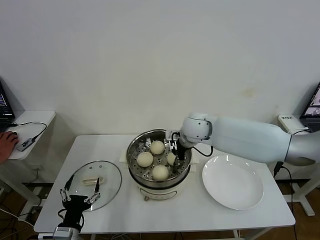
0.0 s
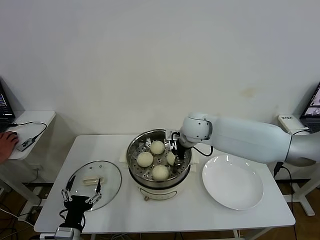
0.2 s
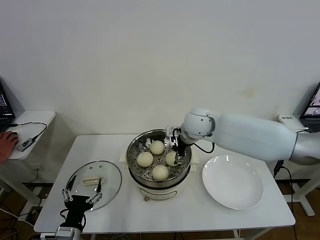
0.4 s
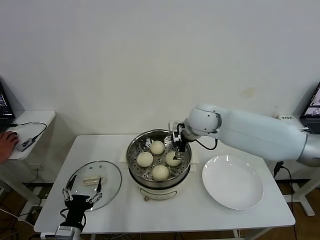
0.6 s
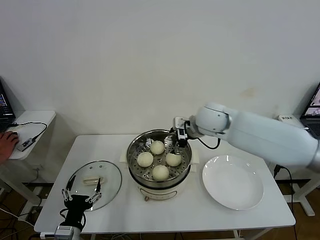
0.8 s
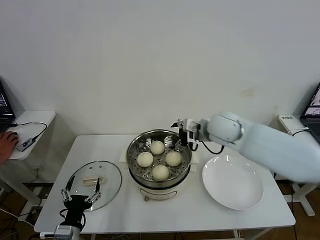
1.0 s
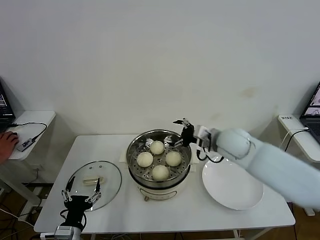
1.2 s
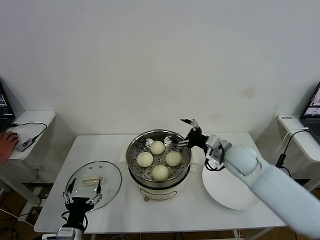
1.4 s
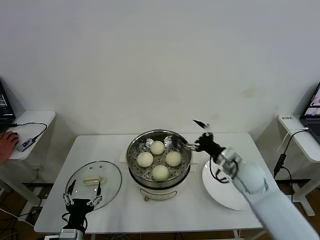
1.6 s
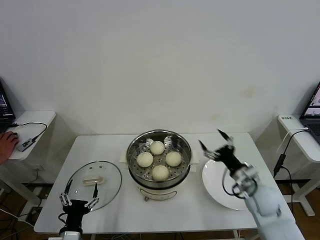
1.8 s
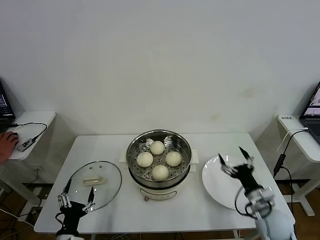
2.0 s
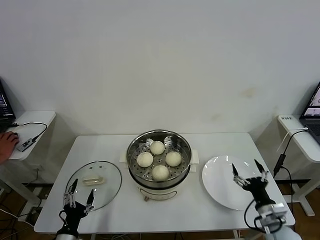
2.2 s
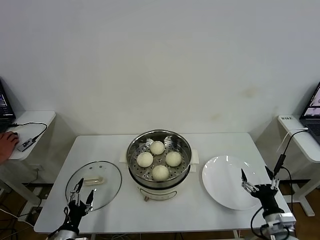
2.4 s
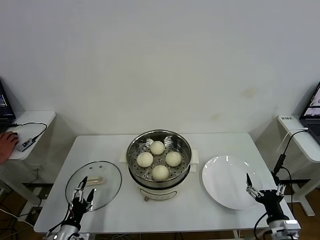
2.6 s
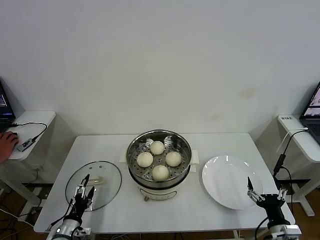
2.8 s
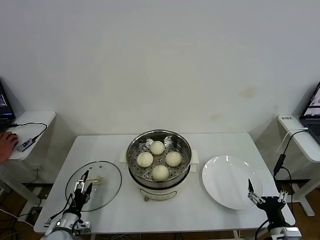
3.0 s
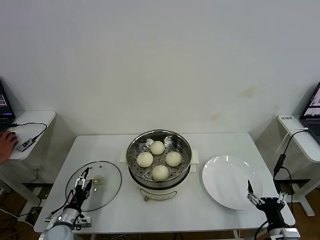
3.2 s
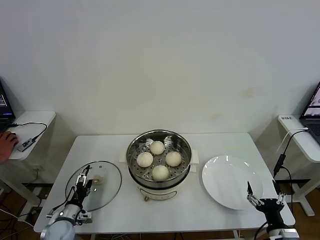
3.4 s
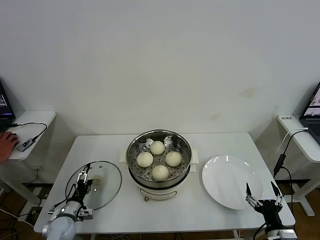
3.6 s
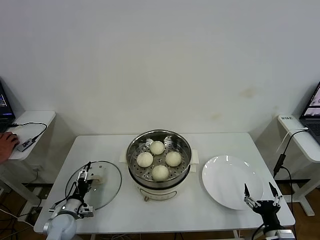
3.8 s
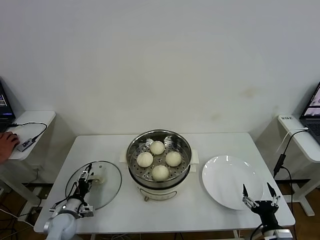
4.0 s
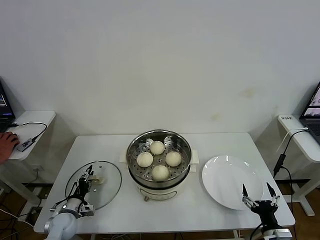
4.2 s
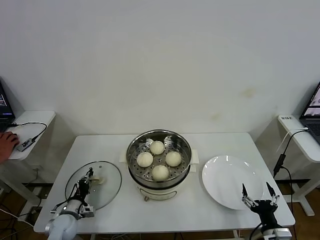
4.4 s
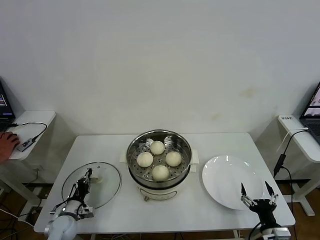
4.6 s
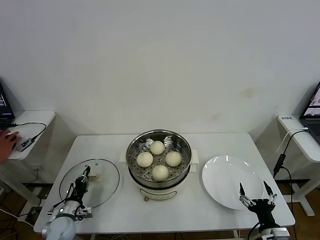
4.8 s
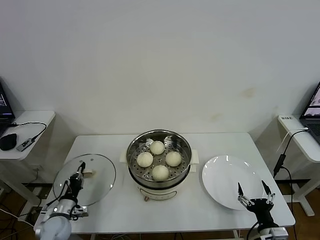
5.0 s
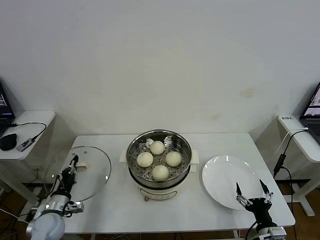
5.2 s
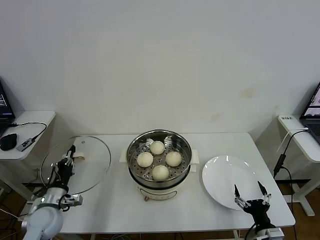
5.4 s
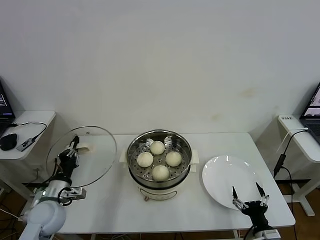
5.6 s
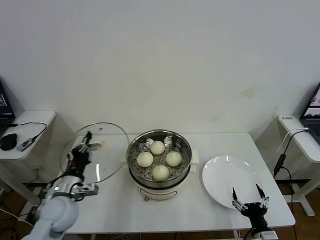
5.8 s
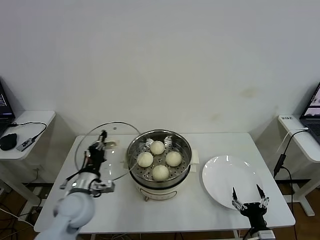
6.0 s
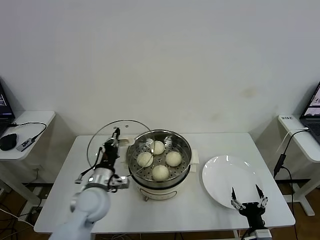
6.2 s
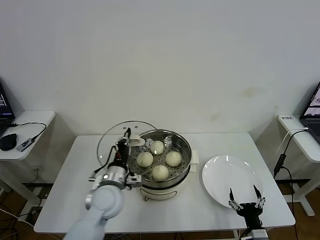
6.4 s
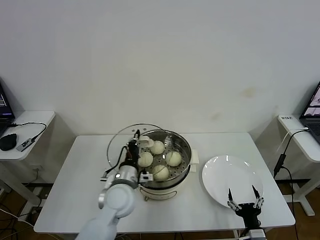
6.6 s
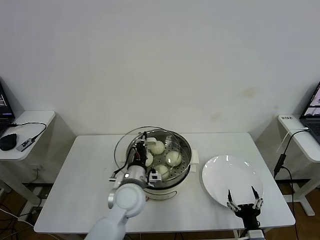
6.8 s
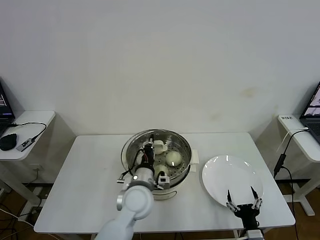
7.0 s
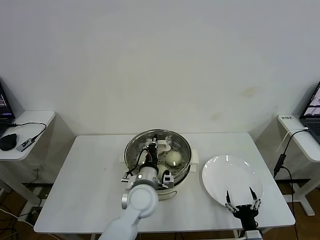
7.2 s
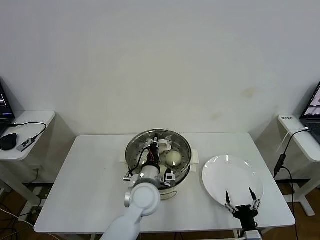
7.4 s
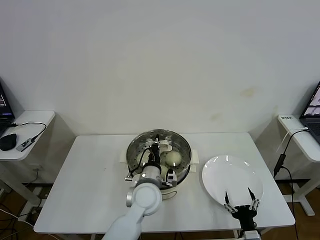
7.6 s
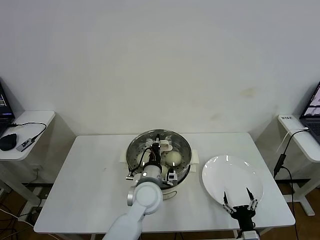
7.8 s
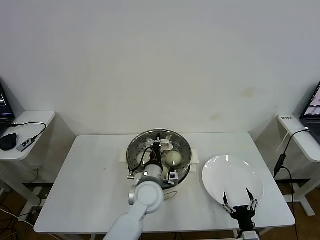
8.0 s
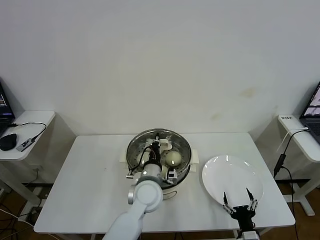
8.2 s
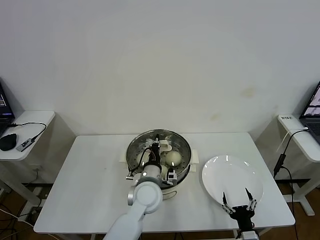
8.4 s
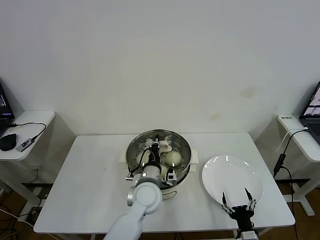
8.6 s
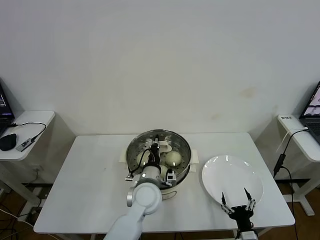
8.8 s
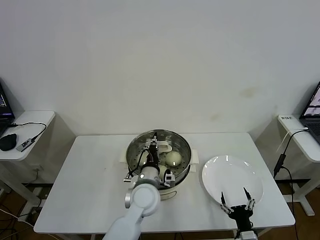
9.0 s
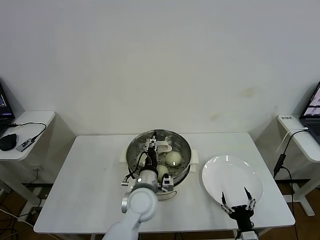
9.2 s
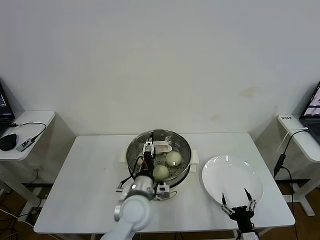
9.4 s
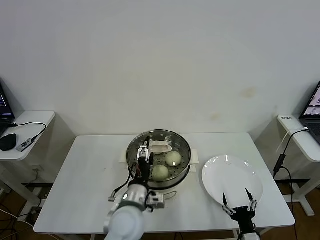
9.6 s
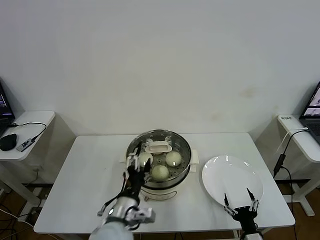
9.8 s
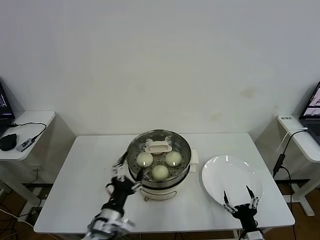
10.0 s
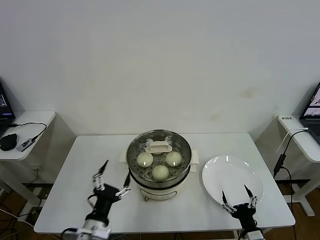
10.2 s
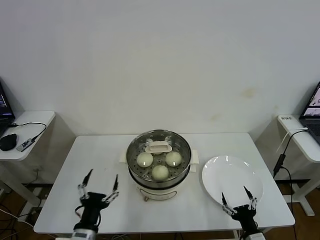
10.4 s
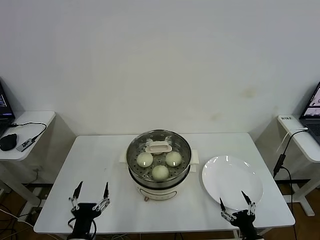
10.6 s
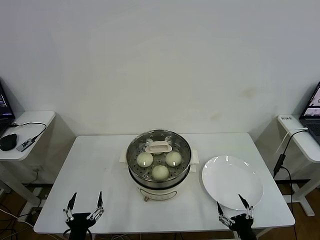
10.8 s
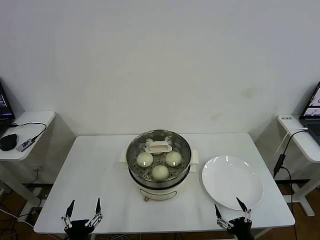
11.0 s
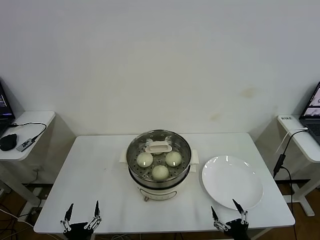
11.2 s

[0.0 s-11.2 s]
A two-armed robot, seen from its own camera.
Task of the whole recording: take steamed baozi put them in steamer then cover it.
Step, 0.6 to 4.6 s: Grasp the pot lid with left gripper.
Step, 4.8 to 9.2 s: Place the pot lid on the steamer with left gripper.
0.0 to 1.6 s: The right gripper goes approximately 25 cm to the right, backward and downward, and opens up.
1.6 to 3.2 s: The left gripper heads forward, to the left and downward, covering roughly 15 cm; the right gripper heads backward, downward and to the right, covering approximately 25 cm.
3.2 to 4.8 s: The left gripper closes its fingers.
4.8 to 6.4 s: The left gripper heads to the right and upward, covering approximately 25 cm.
6.4 to 8.0 s: The left gripper goes approximately 15 cm to the right.
8.0 to 9.6 s: The left gripper travels backward by roughly 5 cm, and opens up.
9.6 to 11.2 s: The left gripper travels backward, to the left and downward by some 25 cm.
